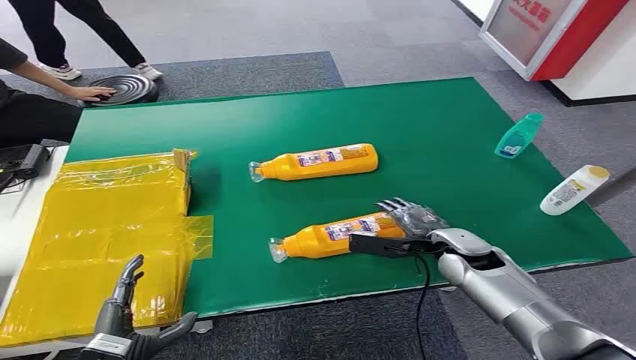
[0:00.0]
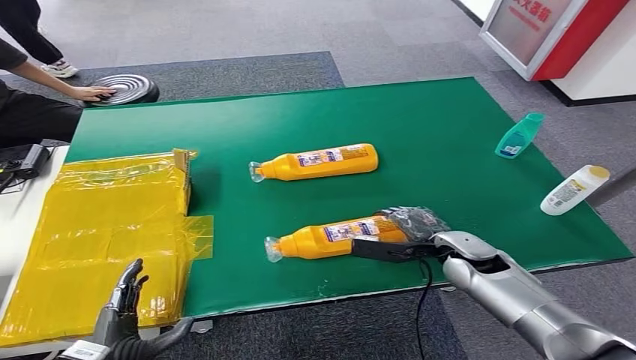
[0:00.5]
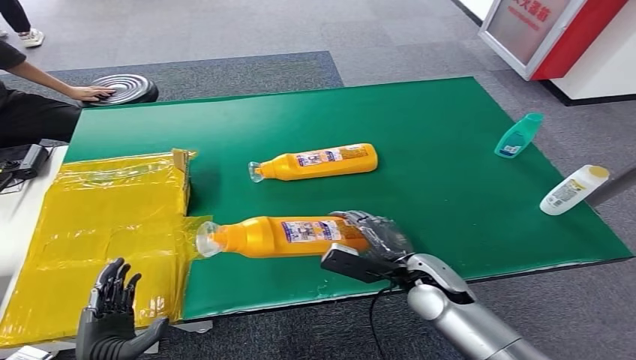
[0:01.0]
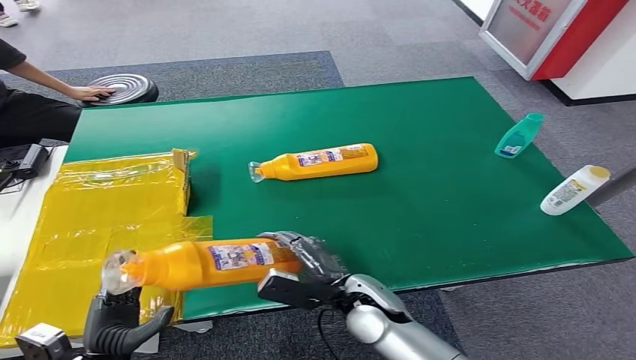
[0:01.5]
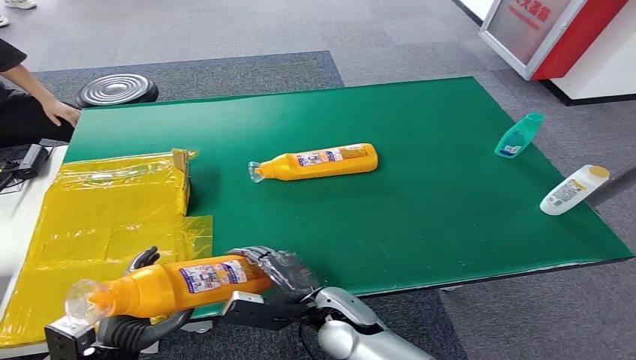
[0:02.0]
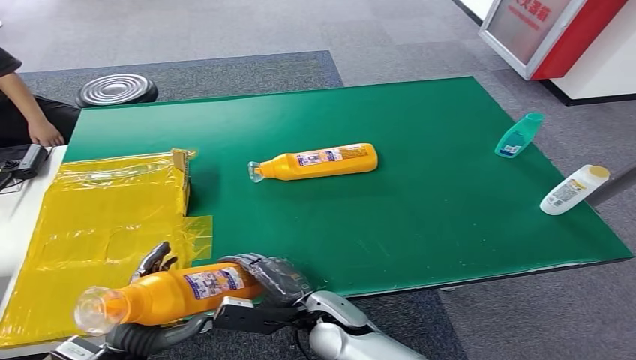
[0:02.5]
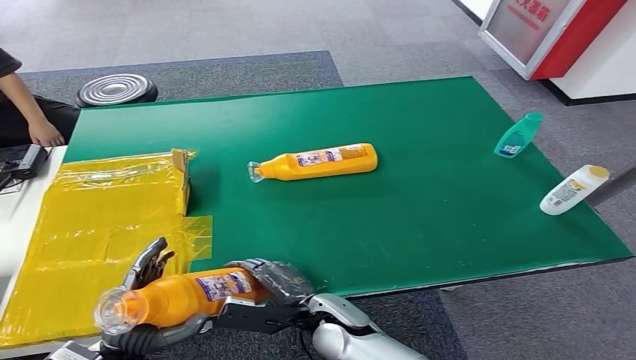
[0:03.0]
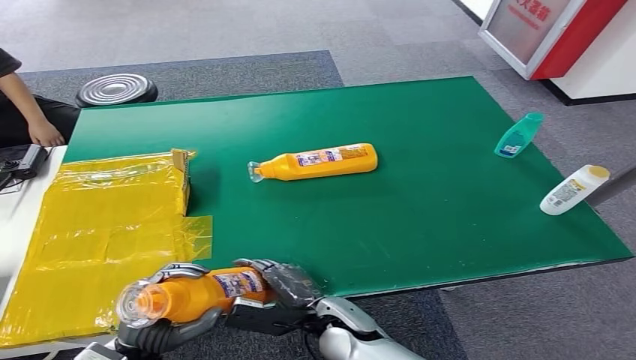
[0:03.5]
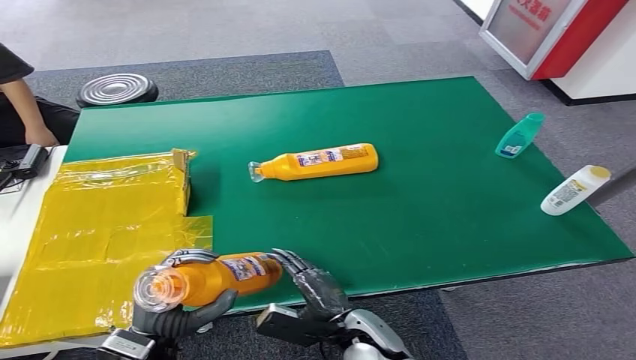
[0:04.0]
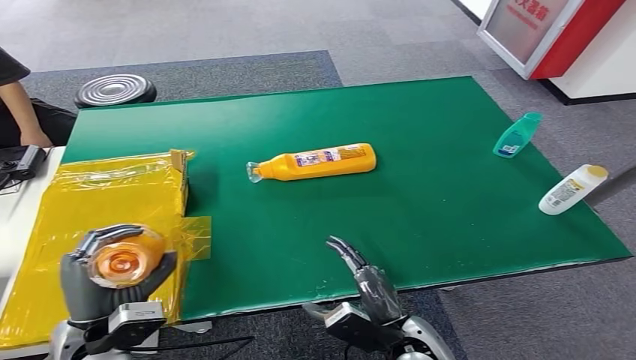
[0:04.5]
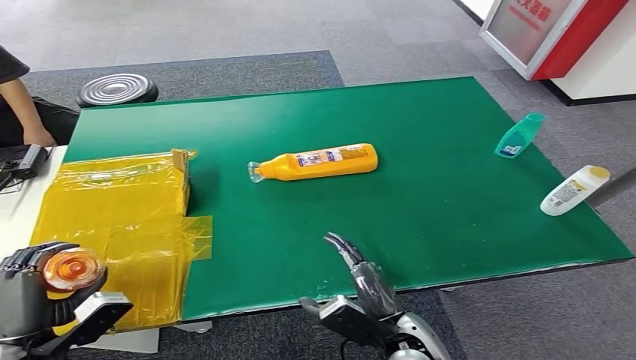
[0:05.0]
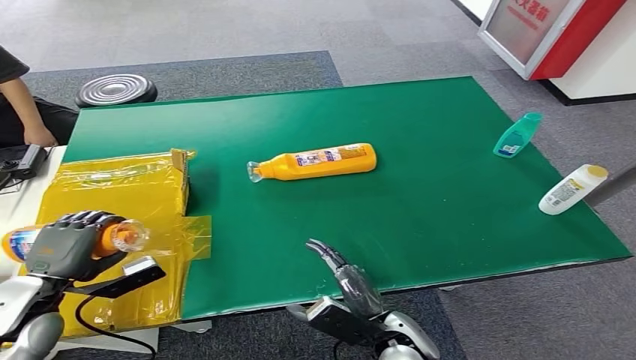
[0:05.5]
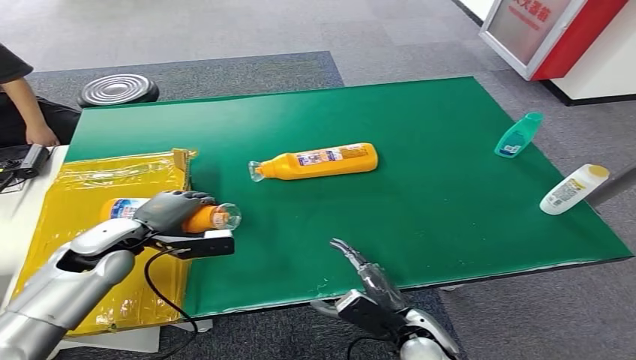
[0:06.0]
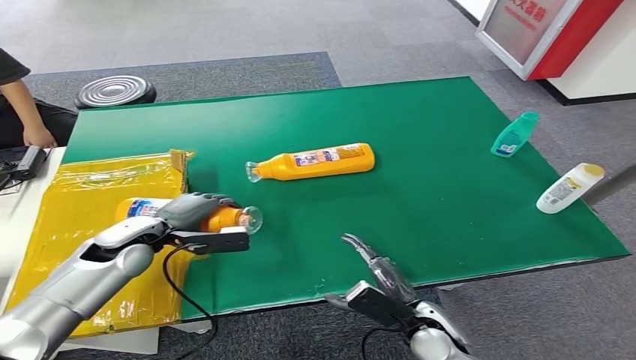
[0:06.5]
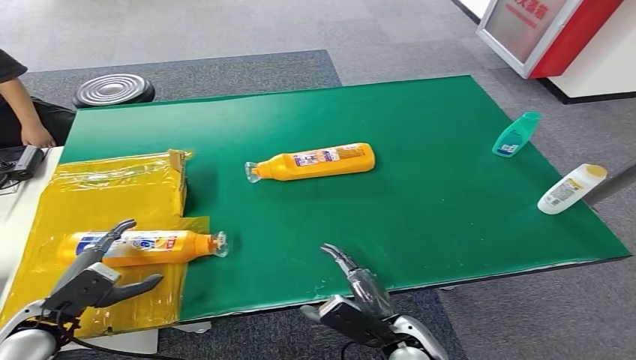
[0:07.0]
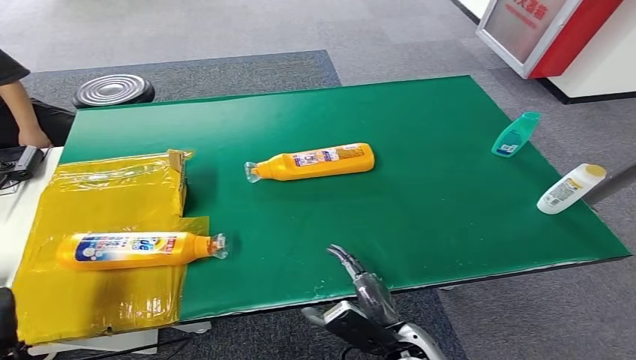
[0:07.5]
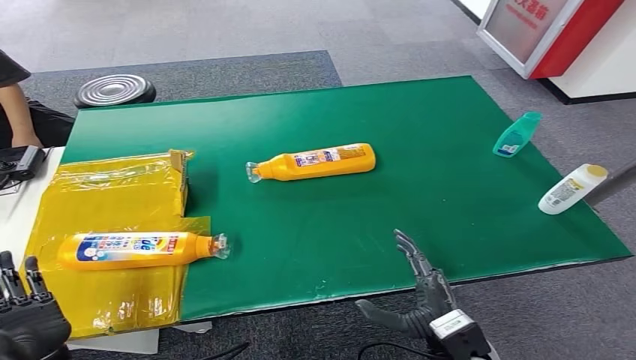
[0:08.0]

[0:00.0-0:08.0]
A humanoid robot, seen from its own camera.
Step, 0:00.0 to 0:02.0: Pick up the bottle from the table.
Step, 0:03.5 to 0:08.0: Turn the bottle to the front side.
0:02.0 to 0:04.0: The left hand shifts roughly 5 cm to the right. Meanwhile the right hand shifts by roughly 5 cm.
0:04.0 to 0:06.0: The right hand shifts approximately 10 cm to the right, while the left hand travels forward and to the left by some 20 cm.
0:06.0 to 0:08.0: The left hand goes roughly 20 cm backward; the right hand changes place by about 5 cm.
